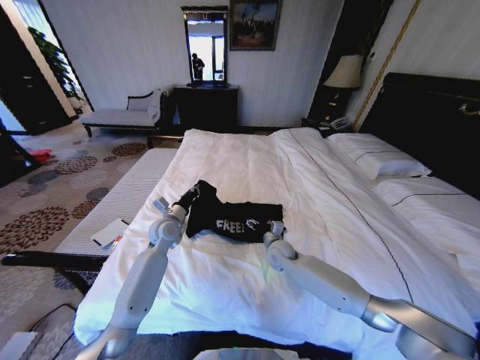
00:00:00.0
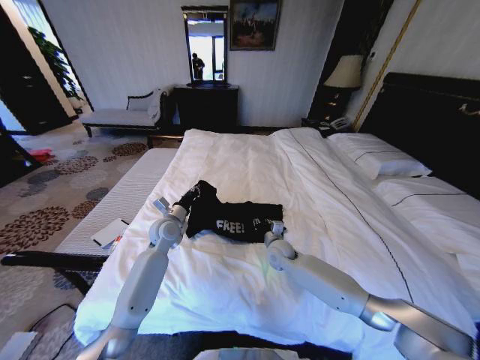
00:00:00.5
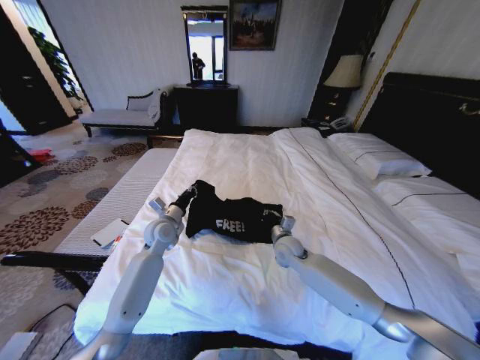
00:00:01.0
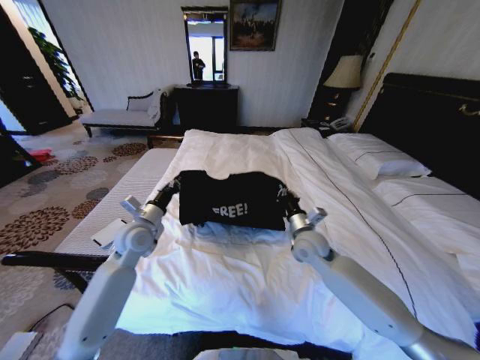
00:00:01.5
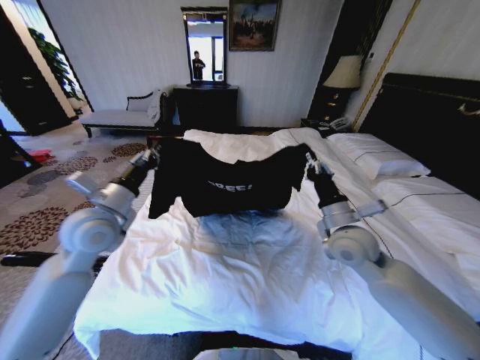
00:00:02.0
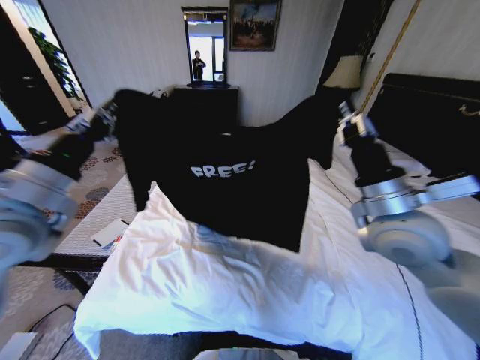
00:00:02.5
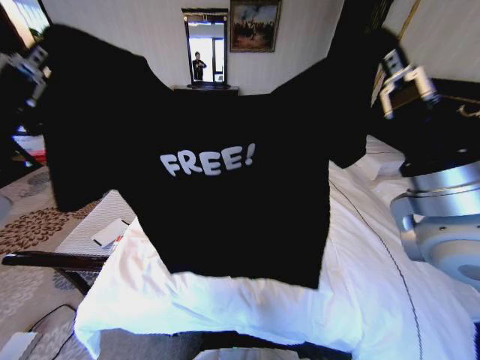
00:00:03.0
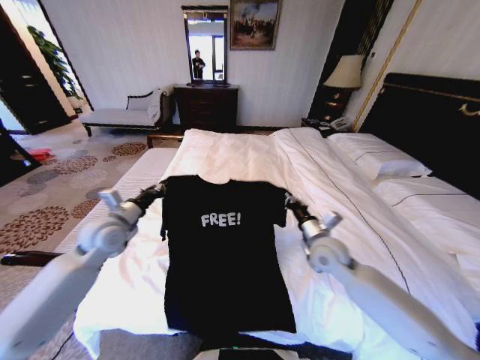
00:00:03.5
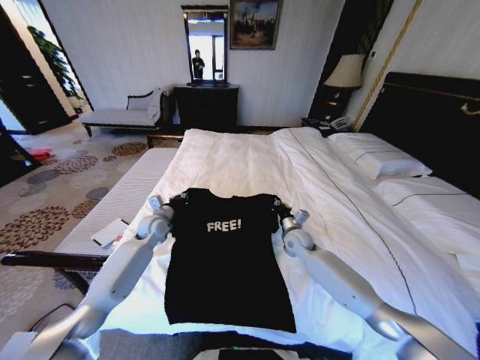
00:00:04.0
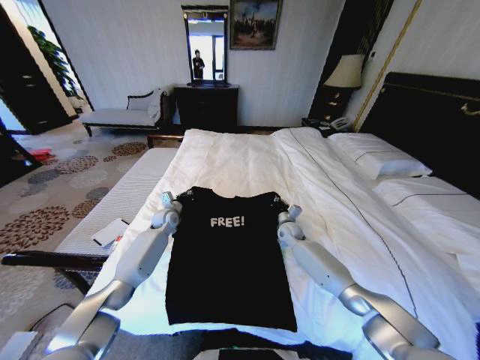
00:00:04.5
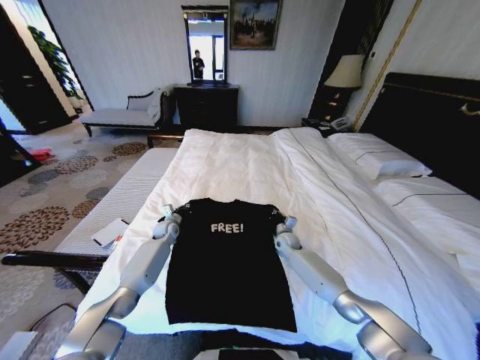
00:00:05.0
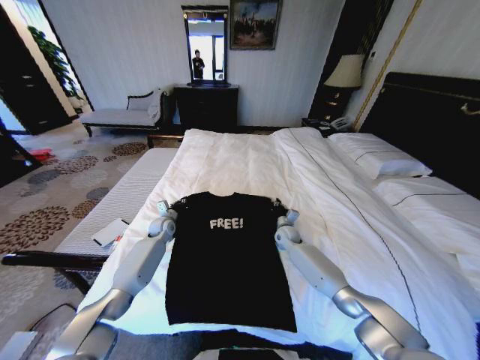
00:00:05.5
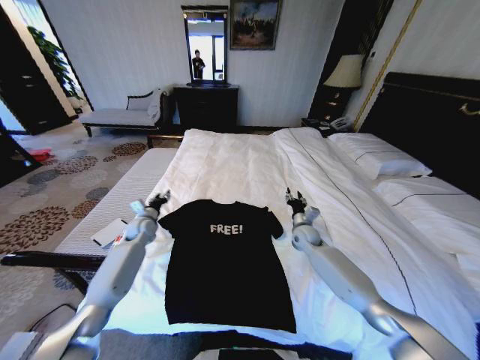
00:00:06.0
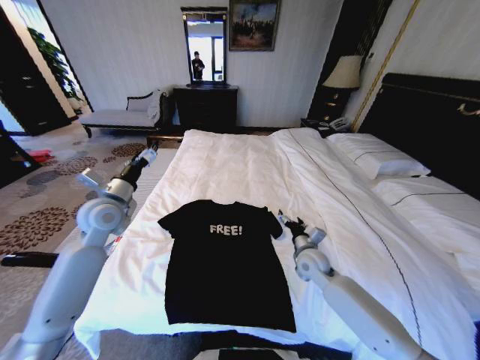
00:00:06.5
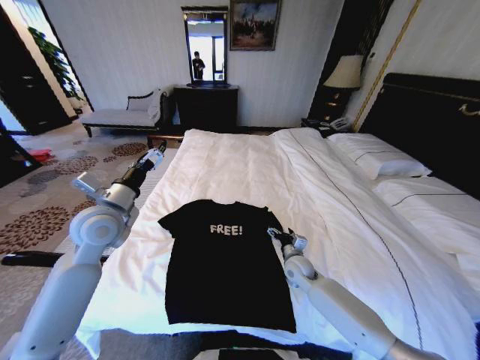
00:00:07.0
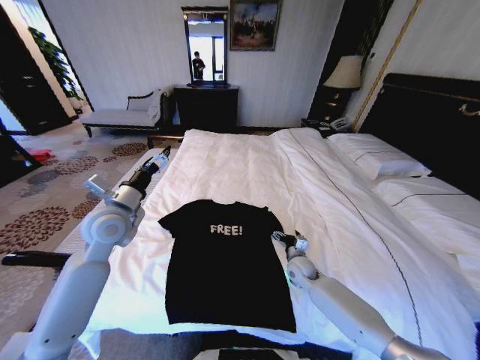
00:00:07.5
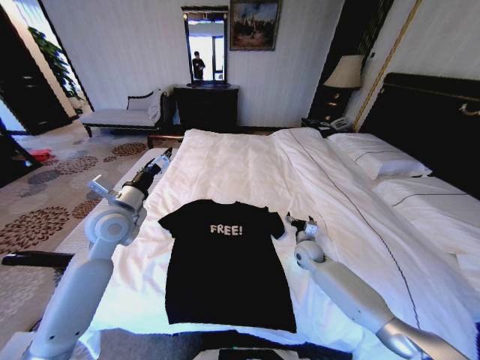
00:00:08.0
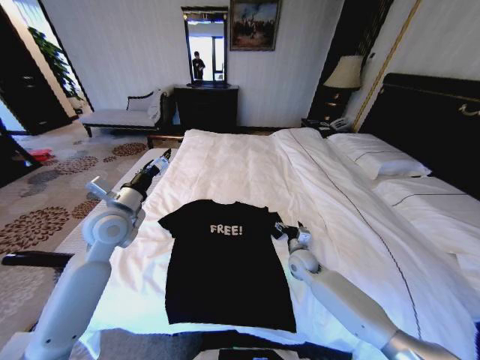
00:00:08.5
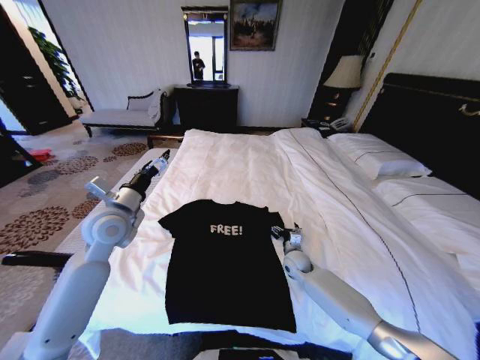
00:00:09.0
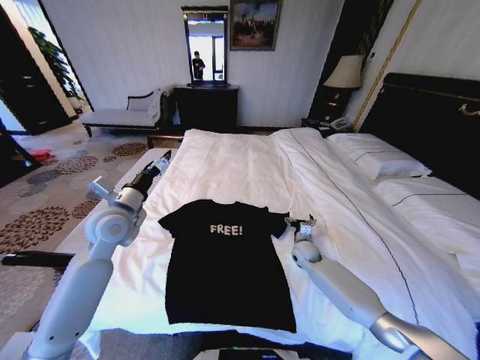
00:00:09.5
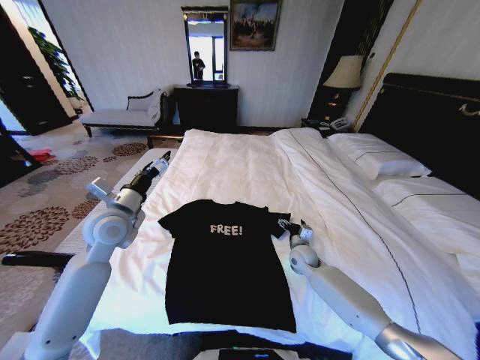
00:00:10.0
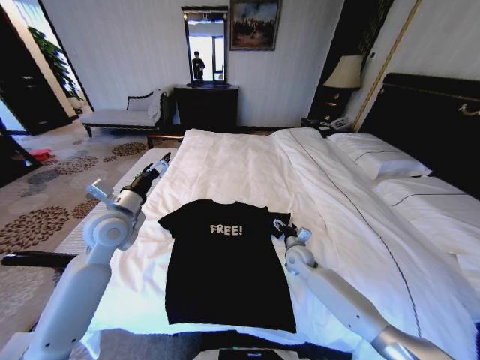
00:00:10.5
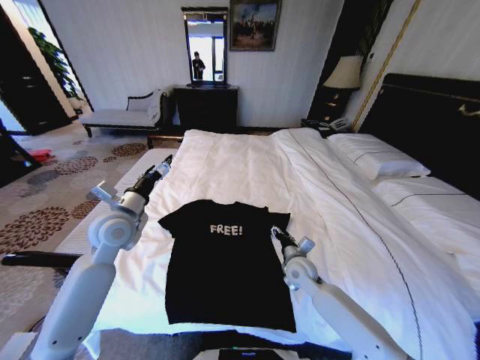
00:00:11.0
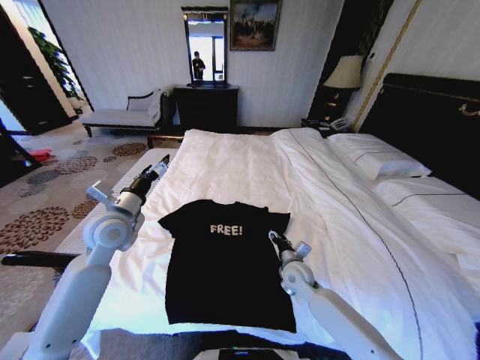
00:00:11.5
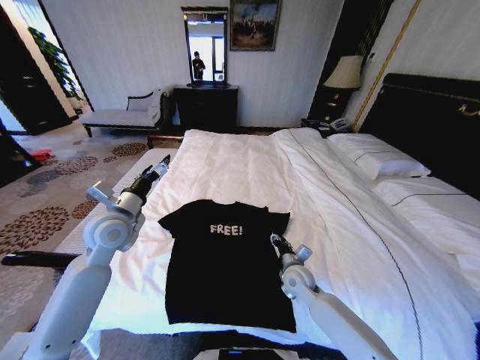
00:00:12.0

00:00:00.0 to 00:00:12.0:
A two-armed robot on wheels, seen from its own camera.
Task of the whole recording: Fold the clothes on the bed.
00:00:00.0 to 00:00:02.0: The right gripper moves upward, to the right and backward, approximately 25 cm, and closes up. Meanwhile the left gripper goes approximately 20 cm upward, backward and to the left.
00:00:02.0 to 00:00:04.0: The two grippers go roughly 20 cm downward and forward.
00:00:04.0 to 00:00:06.0: The left gripper shifts approximately 5 cm to the left, goes downward and returns, about 10 cm each way, and opens; the right gripper reaches roughly 10 cm downward, then returns, and opens its fingers.
00:00:06.0 to 00:00:08.0: The right gripper opens its fingers; the left gripper is displaced upward and backward by some 20 cm, and opens.
00:00:08.0 to 00:00:10.0: The grippers make only small movements.
00:00:10.0 to 00:00:12.0: The right gripper moves backward and to the left, some 10 cm, and closes.

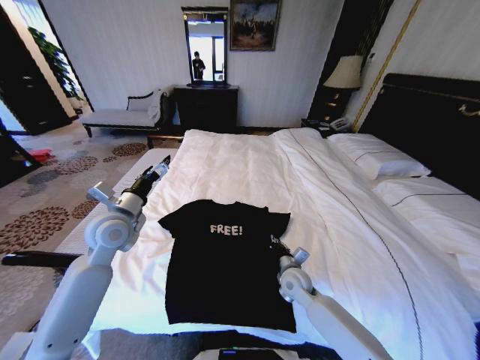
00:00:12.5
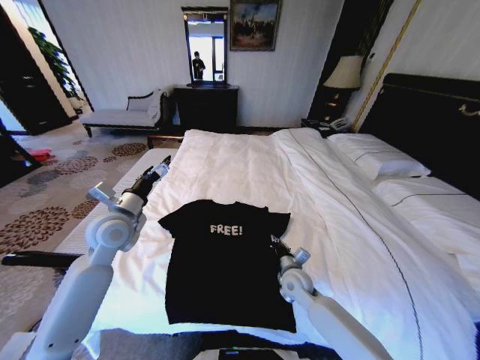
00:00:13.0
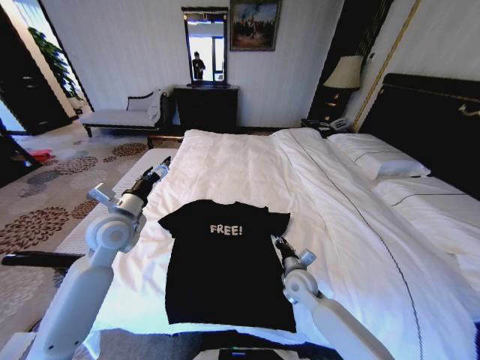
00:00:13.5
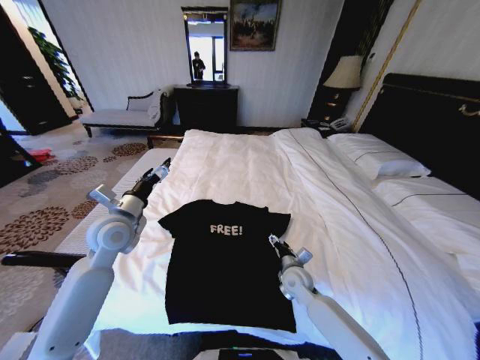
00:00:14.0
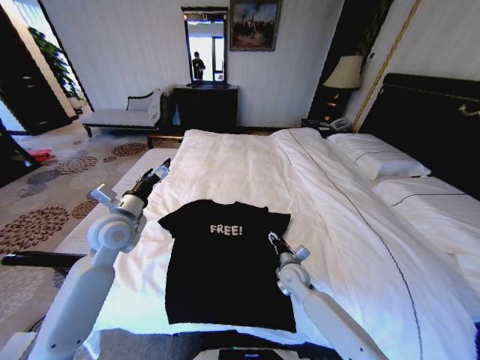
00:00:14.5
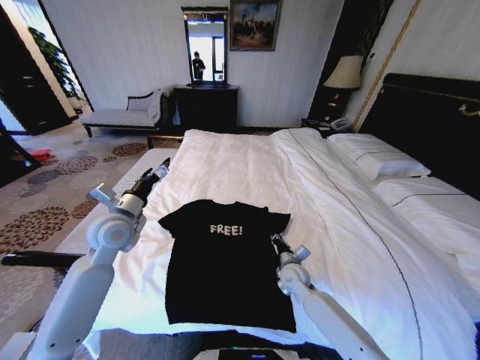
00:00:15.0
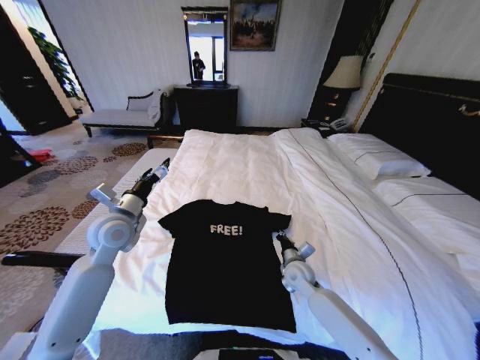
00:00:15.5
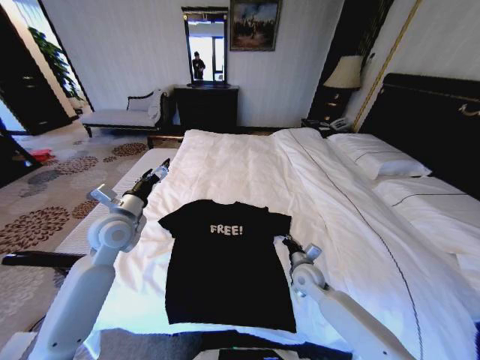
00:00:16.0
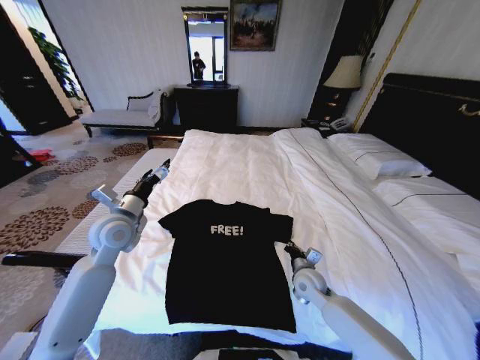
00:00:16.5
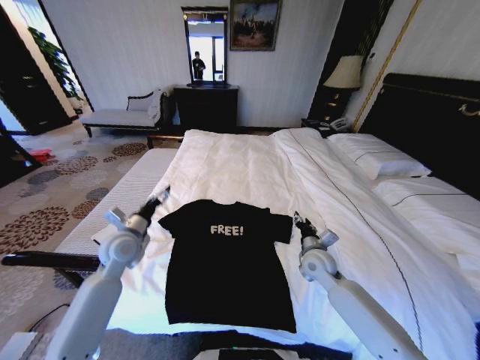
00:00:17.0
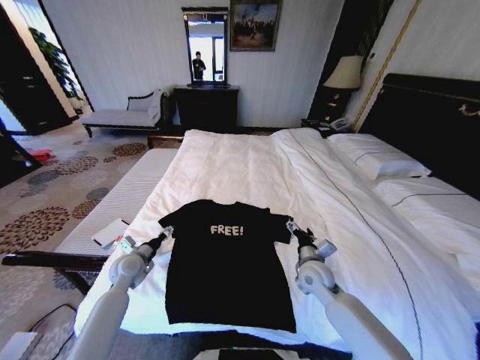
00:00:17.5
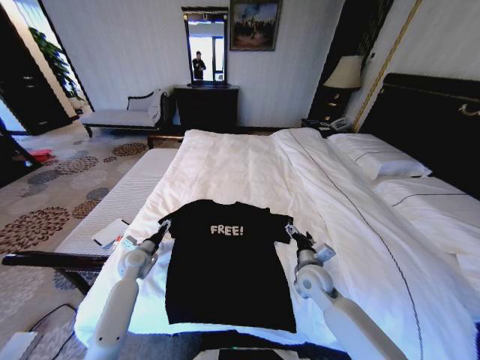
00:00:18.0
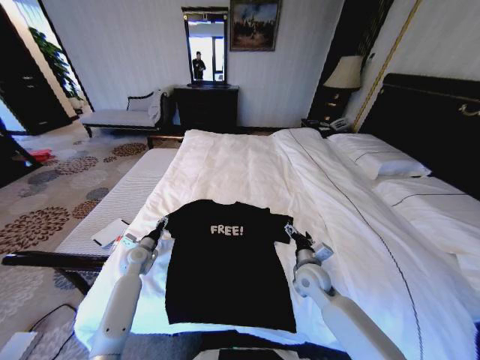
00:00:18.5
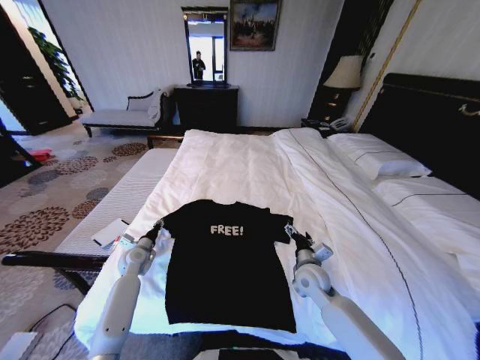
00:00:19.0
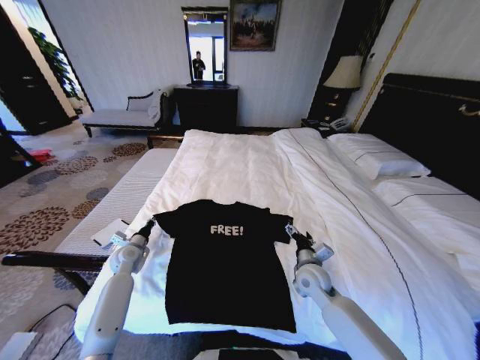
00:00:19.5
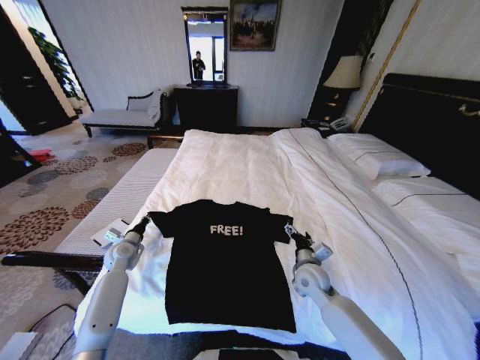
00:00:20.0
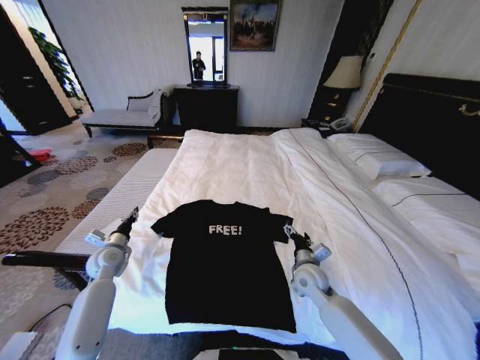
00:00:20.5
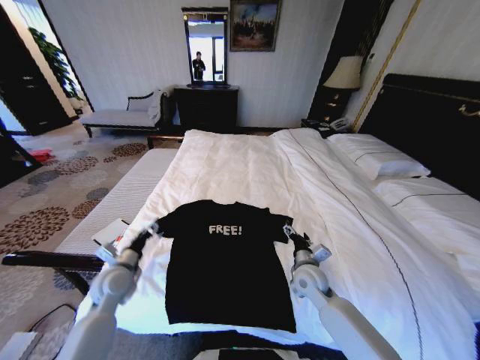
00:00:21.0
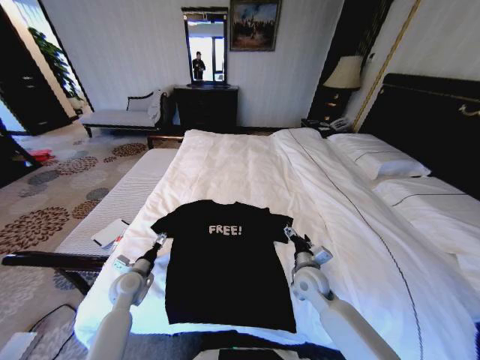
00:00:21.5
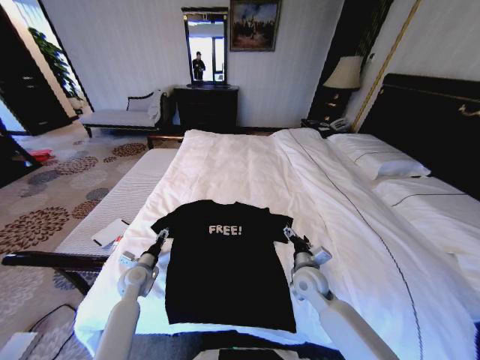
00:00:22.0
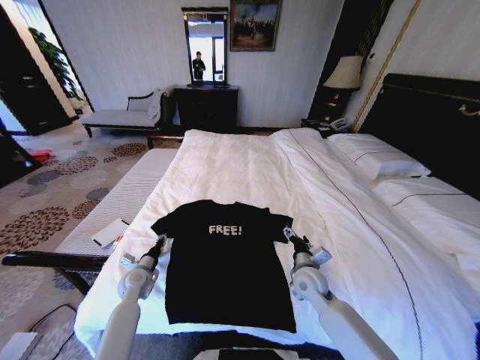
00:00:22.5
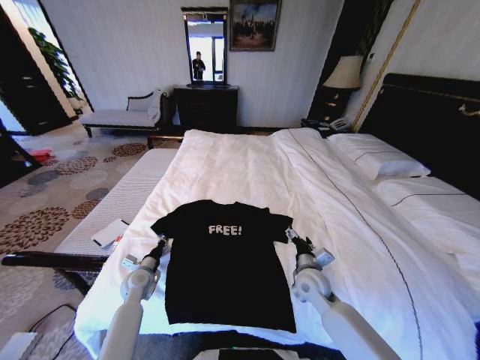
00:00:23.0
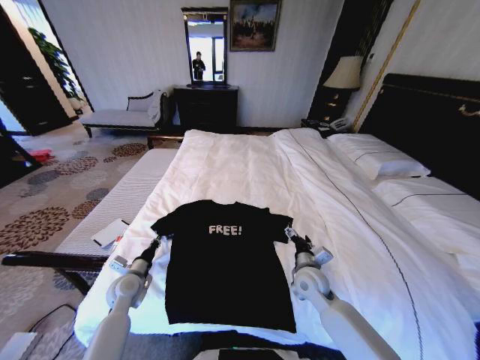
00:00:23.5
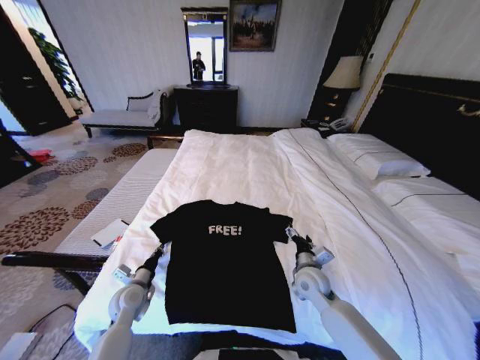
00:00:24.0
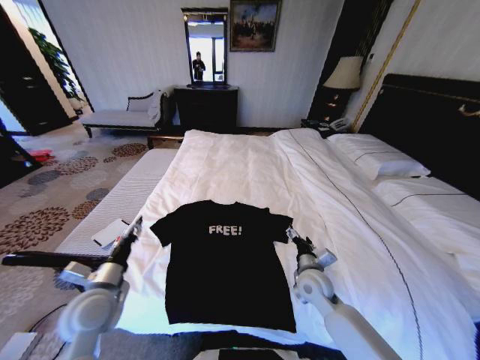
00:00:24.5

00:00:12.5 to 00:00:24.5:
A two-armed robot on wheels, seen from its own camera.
Task of the whole recording: Fold the clothes on the bed.
00:00:12.5 to 00:00:14.5: The right gripper opens.
00:00:14.5 to 00:00:16.5: The right gripper closes its fingers.
00:00:16.5 to 00:00:18.5: The right gripper opens up. Meanwhile the left gripper heads downward, covering approximately 25 cm.
00:00:18.5 to 00:00:20.5: The left gripper travels upward and to the left by approximately 10 cm, and closes its fingers.
00:00:20.5 to 00:00:22.5: The left gripper is displaced downward and to the right by roughly 10 cm, and opens, then closes again.
00:00:22.5 to 00:00:24.5: The left gripper heads upward and backward, covering about 20 cm.

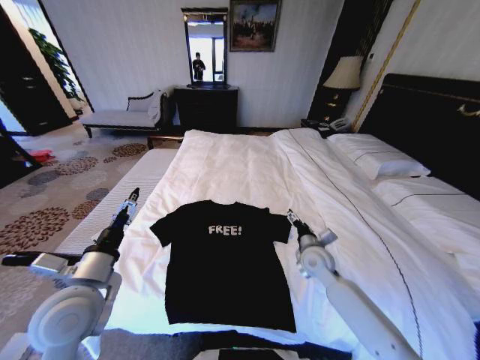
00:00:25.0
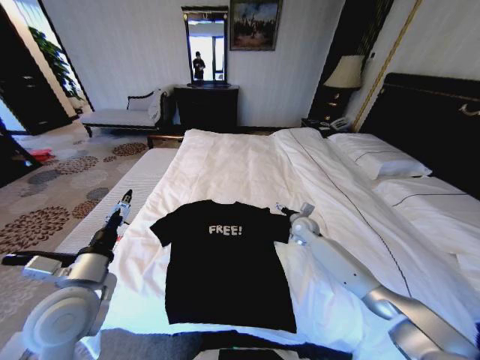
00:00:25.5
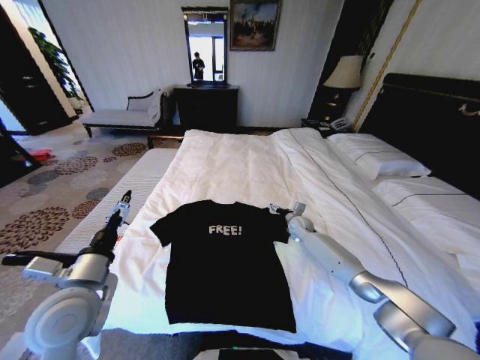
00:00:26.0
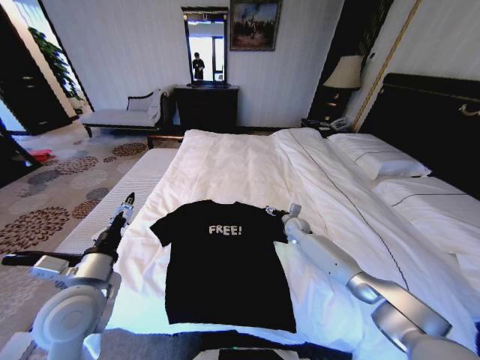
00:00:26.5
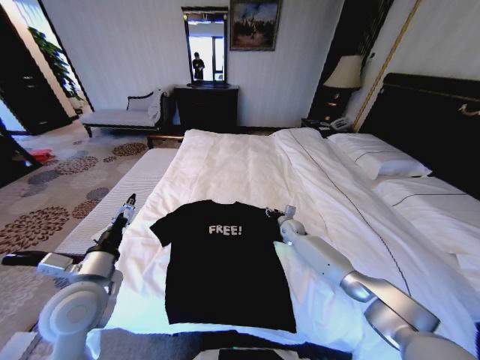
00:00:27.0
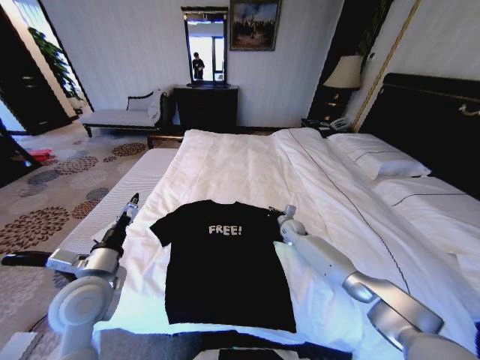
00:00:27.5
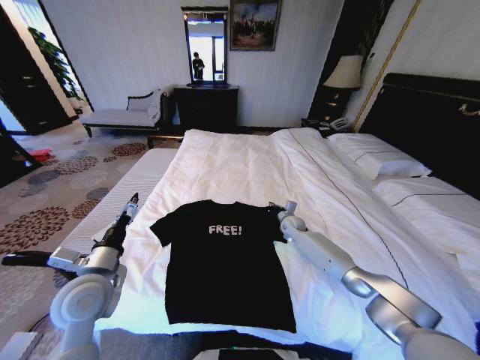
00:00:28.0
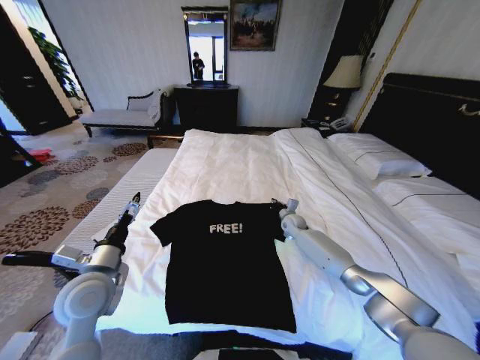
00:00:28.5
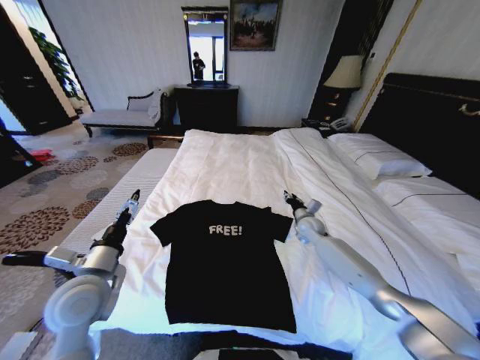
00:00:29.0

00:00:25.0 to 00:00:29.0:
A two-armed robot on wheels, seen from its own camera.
Task of the whole recording: Fold the clothes on the bed.
00:00:25.0 to 00:00:27.0: The right gripper is displaced forward and downward by some 20 cm, and closes its fingers.
00:00:27.0 to 00:00:29.0: The right gripper heads upward, covering approximately 5 cm, and closes, then reopens.
